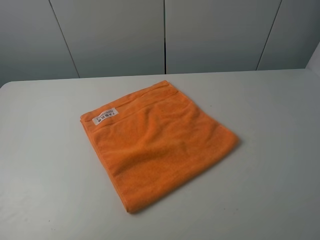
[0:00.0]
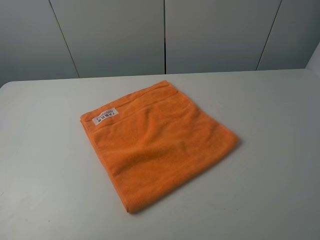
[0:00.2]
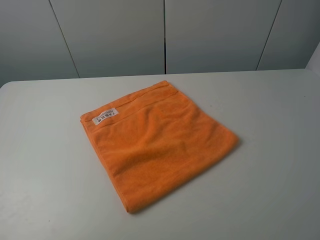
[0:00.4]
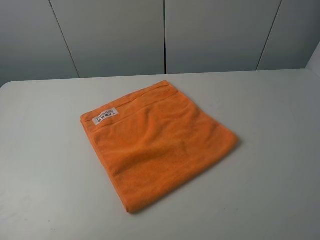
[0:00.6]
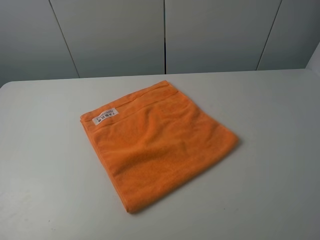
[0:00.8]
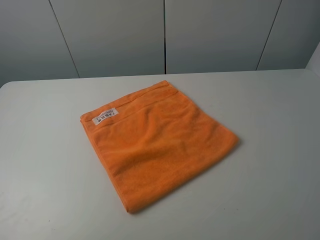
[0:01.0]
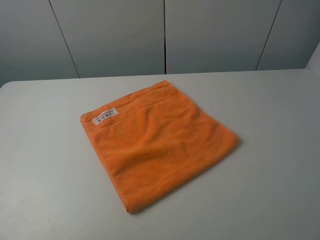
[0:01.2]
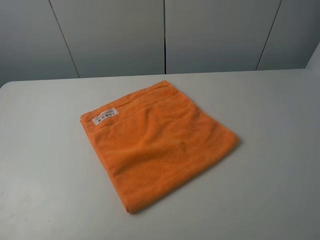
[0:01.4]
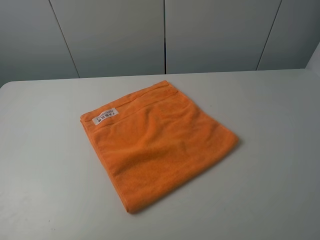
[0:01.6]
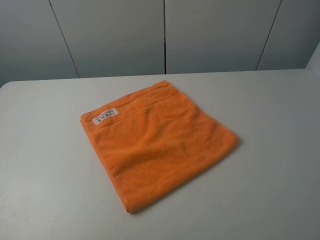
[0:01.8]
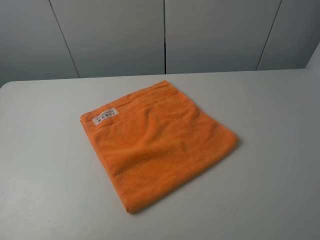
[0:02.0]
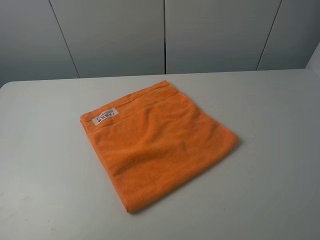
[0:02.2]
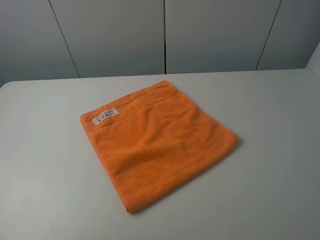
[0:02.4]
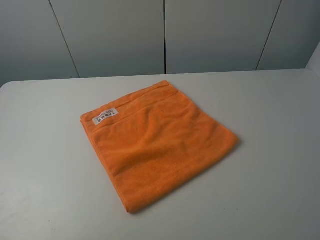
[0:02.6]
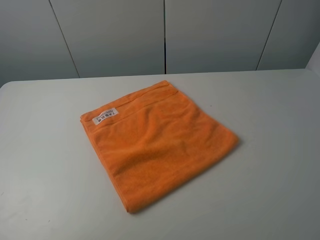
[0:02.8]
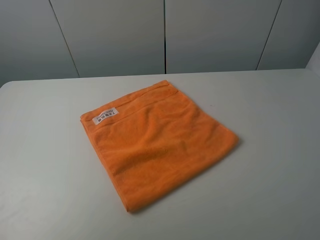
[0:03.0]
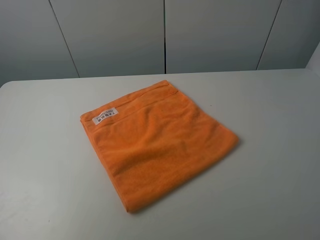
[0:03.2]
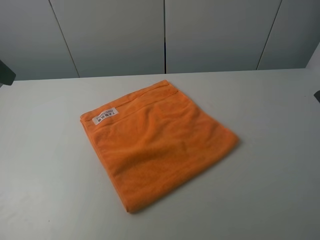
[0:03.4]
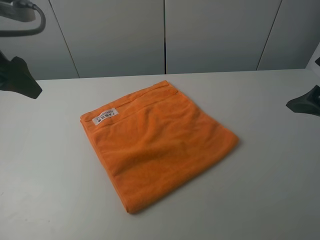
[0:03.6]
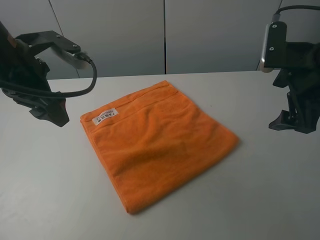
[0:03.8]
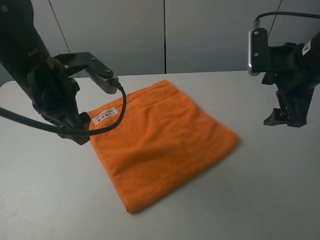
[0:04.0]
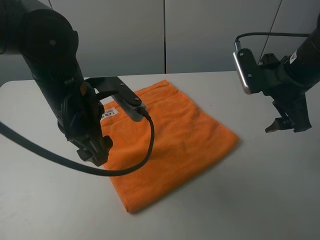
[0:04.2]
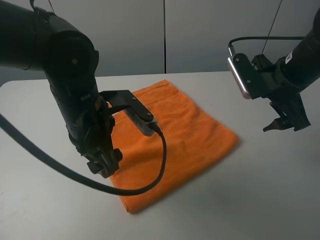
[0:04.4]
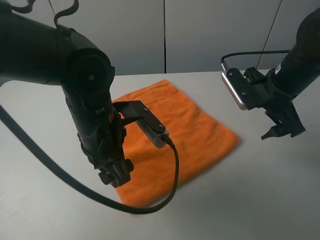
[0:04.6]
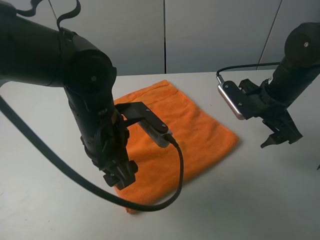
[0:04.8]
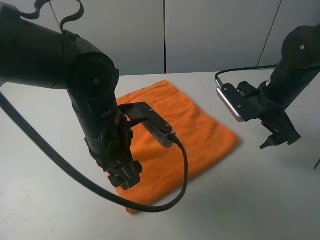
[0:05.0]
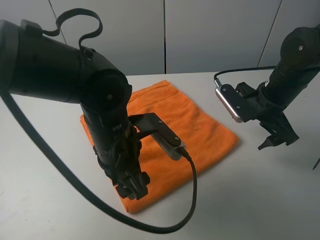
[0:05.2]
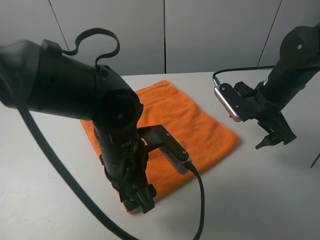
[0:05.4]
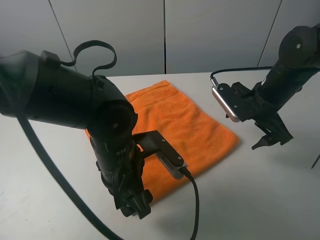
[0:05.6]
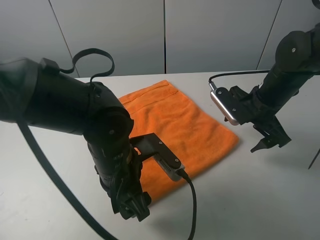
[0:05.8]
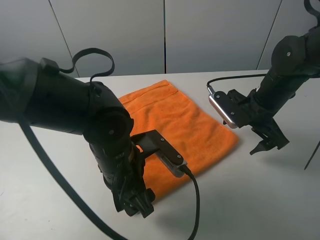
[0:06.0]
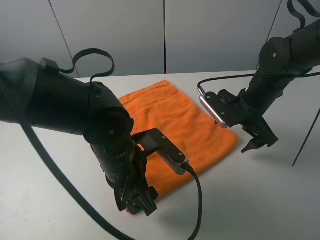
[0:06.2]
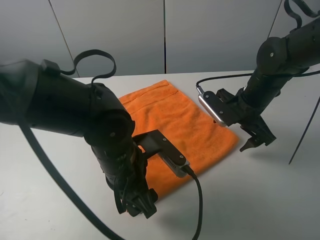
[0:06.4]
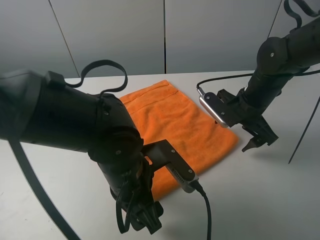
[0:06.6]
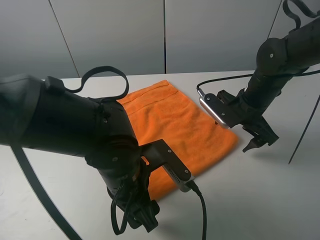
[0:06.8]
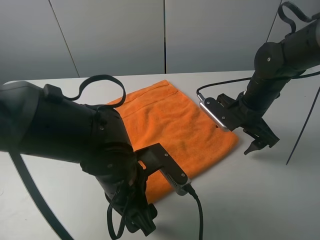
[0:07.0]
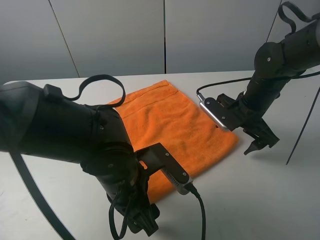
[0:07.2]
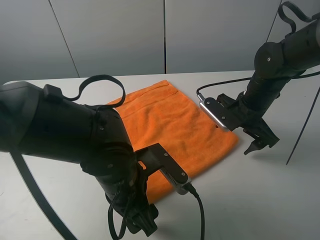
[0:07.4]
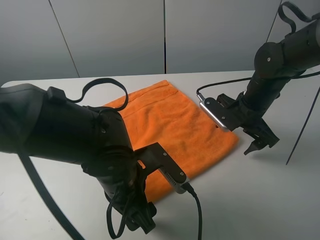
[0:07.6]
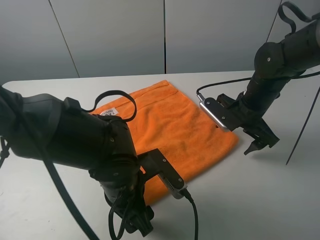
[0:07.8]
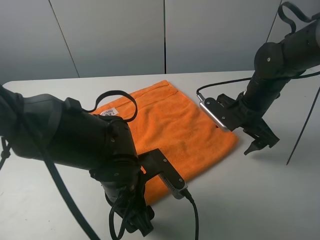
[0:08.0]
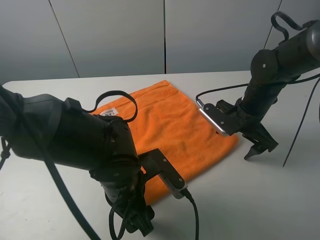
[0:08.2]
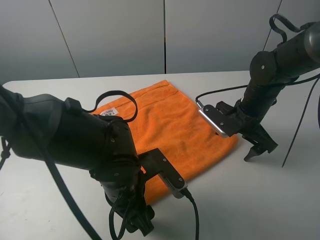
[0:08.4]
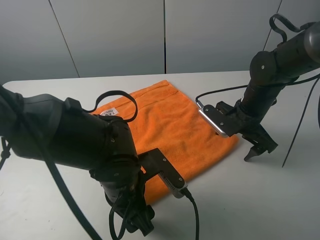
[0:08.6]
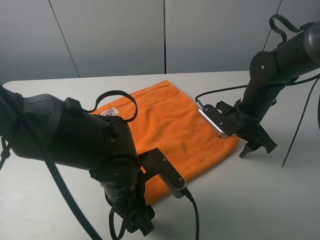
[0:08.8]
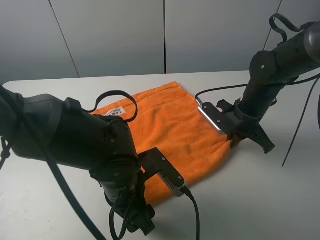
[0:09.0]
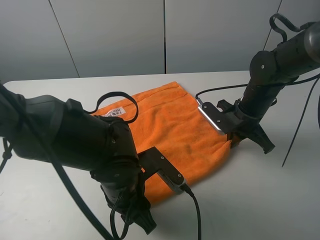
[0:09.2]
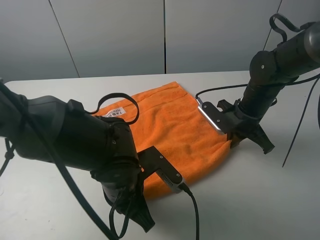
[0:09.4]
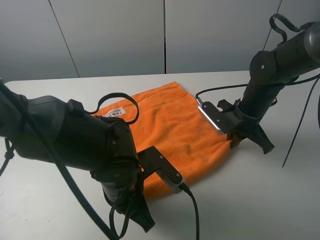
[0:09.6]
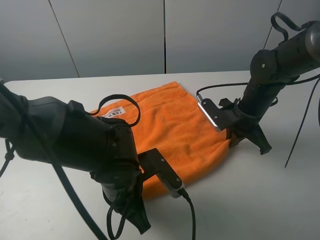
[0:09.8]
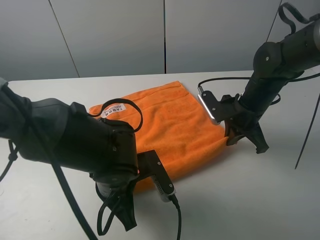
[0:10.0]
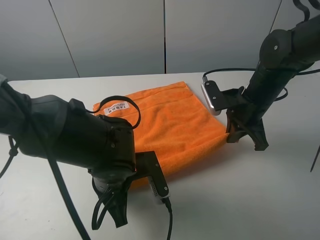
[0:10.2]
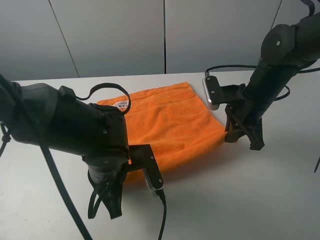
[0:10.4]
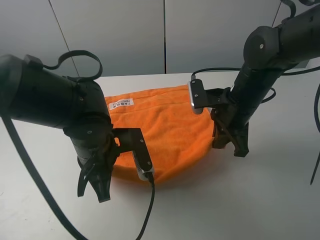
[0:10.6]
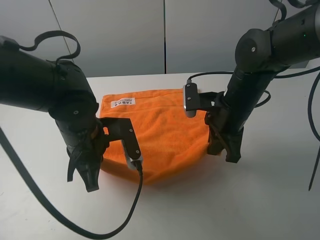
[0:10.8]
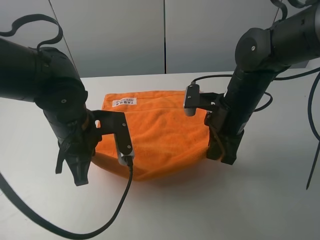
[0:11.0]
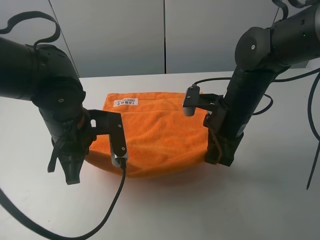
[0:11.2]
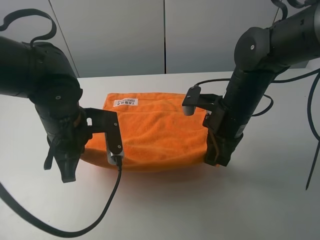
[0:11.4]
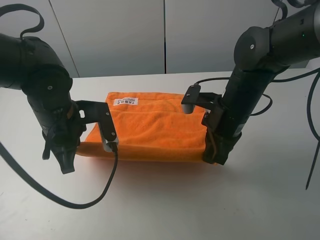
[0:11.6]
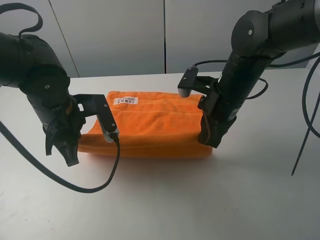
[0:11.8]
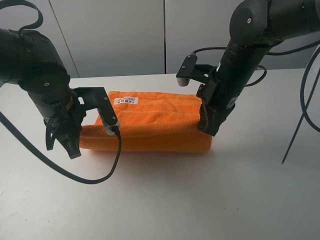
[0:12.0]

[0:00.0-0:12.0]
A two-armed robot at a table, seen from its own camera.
Task of the whole recording: fold the towels on the table.
Step, 0:00.0 to 0:09.0: Grasp the orange towel with the right gripper.
Step, 0:09.2 to 0:09.4: Grasp the orange towel with the left gripper.
0:00.0 to 0:01.6: Both grippers stay about where they are.
0:03.0 to 0:04.4: The left gripper heads to the right, downward and forward, covering approximately 30 cm; the right gripper moves forward and downward, roughly 25 cm.
0:04.4 to 0:06.0: Both grippers move downward, roughly 5 cm.
0:07.6 to 0:09.0: The right gripper closes up.
0:09.0 to 0:10.4: The right gripper ends up some 5 cm from where it was; the left gripper closes its fingers.
0:10.4 to 0:12.0: The left gripper goes roughly 15 cm to the left, forward and upward, while the right gripper goes some 5 cm to the left.

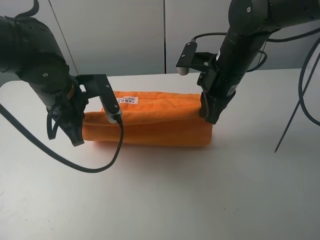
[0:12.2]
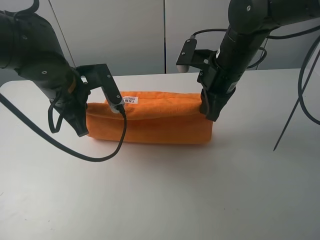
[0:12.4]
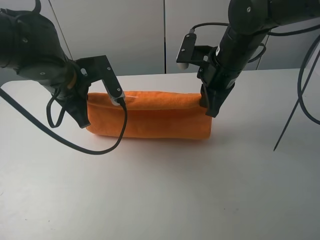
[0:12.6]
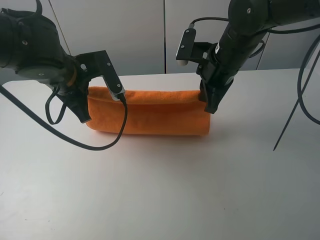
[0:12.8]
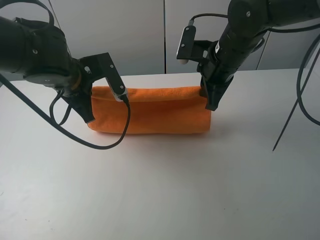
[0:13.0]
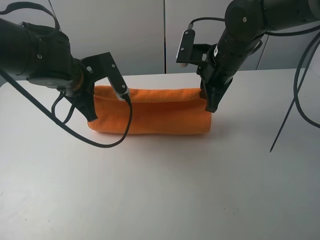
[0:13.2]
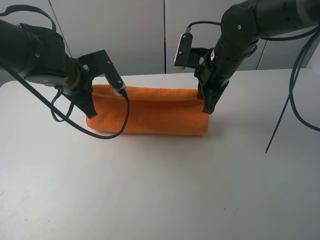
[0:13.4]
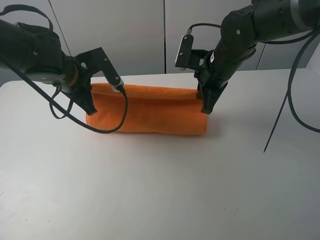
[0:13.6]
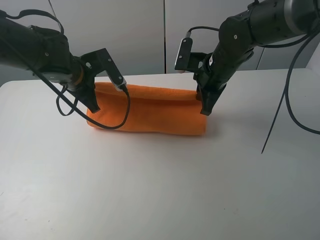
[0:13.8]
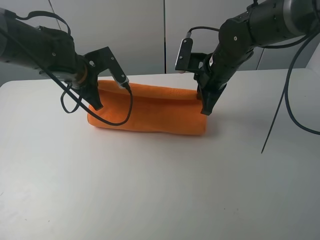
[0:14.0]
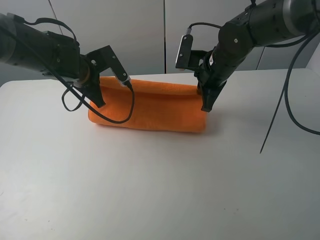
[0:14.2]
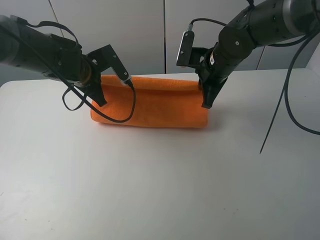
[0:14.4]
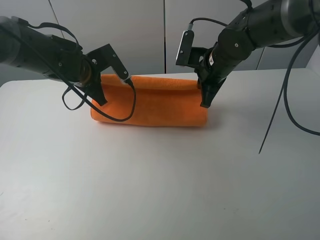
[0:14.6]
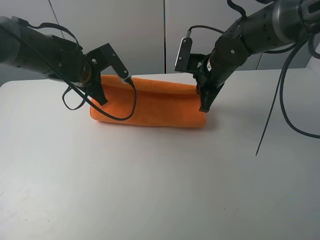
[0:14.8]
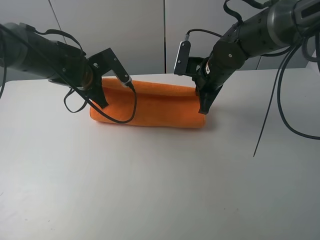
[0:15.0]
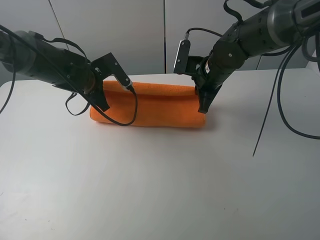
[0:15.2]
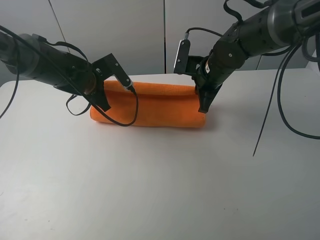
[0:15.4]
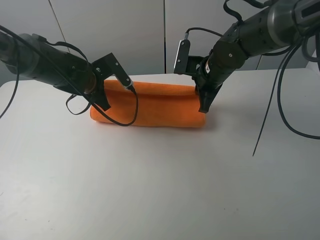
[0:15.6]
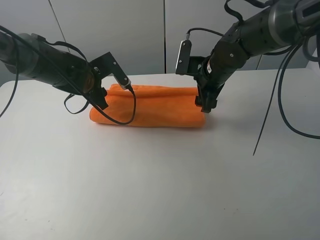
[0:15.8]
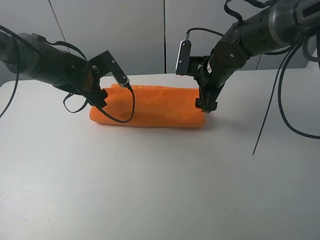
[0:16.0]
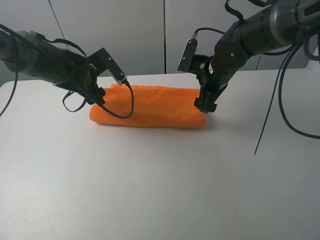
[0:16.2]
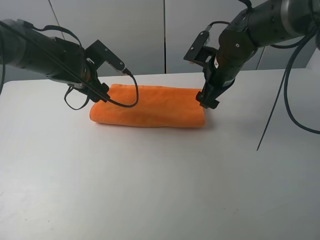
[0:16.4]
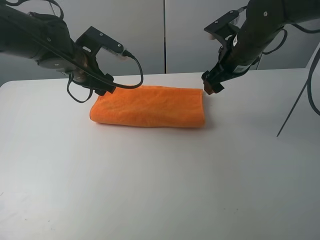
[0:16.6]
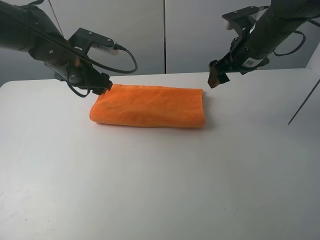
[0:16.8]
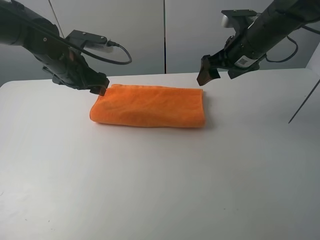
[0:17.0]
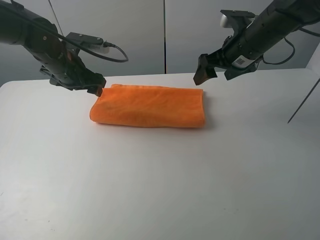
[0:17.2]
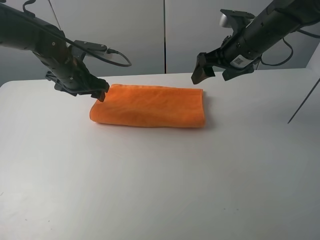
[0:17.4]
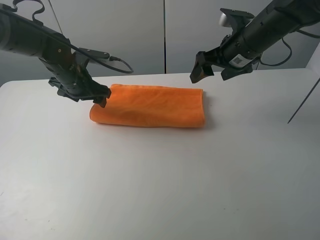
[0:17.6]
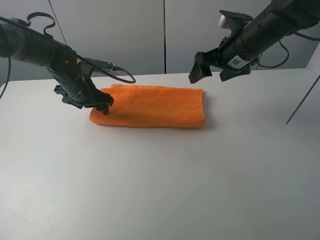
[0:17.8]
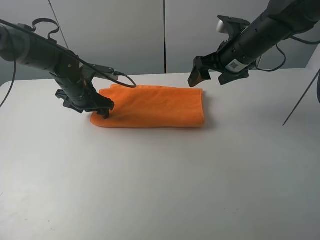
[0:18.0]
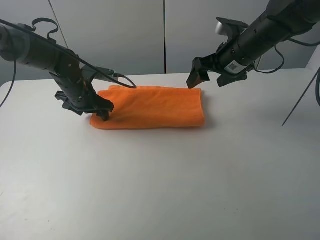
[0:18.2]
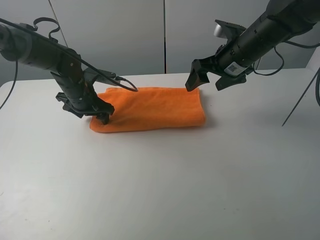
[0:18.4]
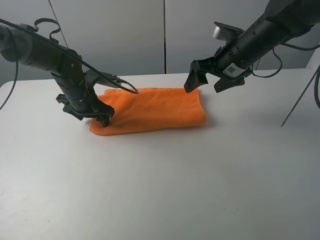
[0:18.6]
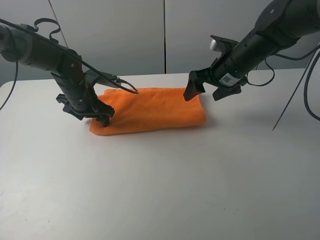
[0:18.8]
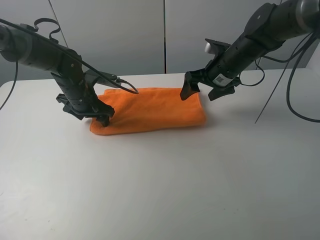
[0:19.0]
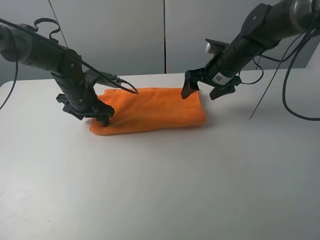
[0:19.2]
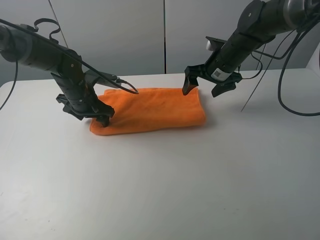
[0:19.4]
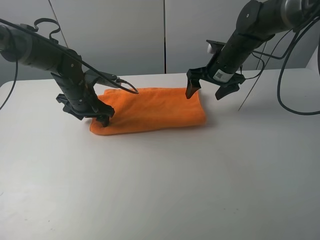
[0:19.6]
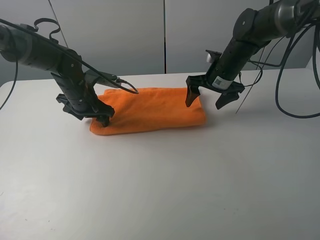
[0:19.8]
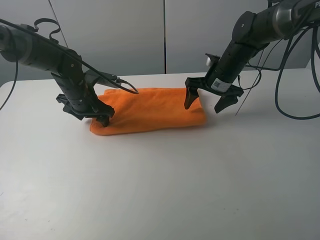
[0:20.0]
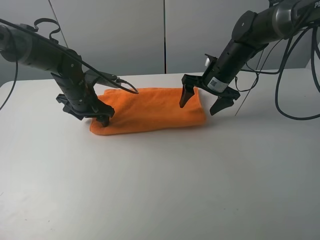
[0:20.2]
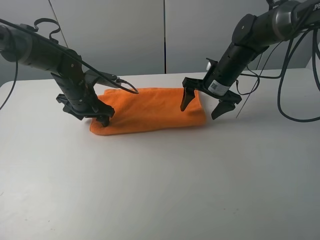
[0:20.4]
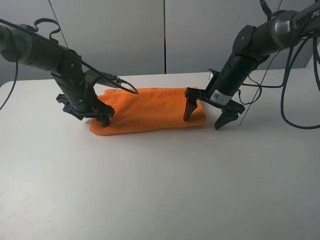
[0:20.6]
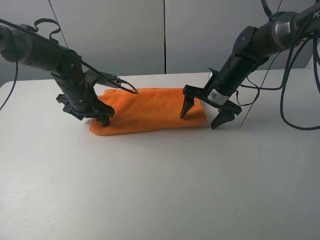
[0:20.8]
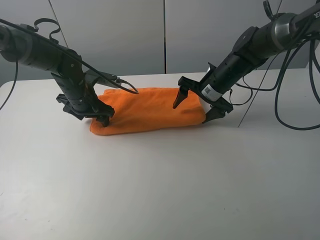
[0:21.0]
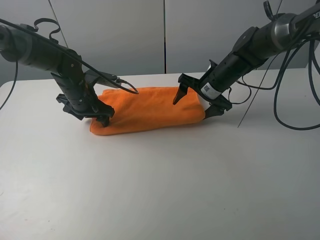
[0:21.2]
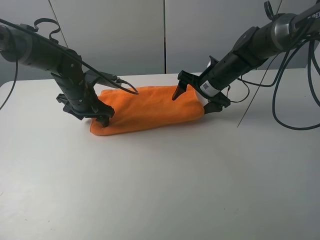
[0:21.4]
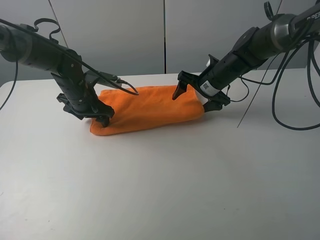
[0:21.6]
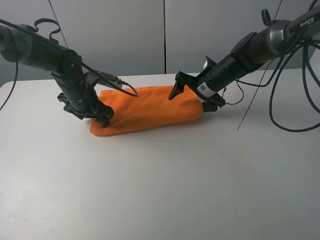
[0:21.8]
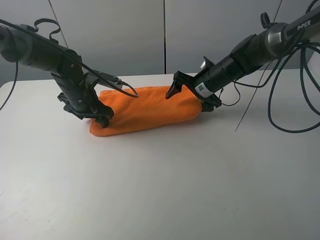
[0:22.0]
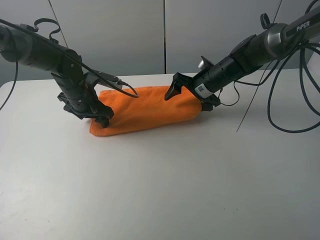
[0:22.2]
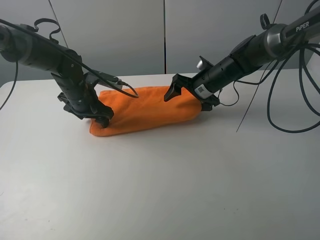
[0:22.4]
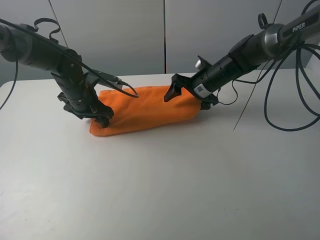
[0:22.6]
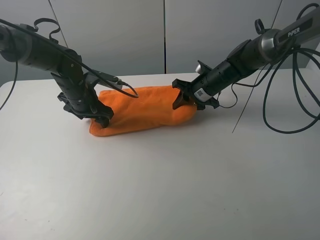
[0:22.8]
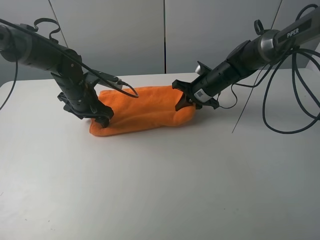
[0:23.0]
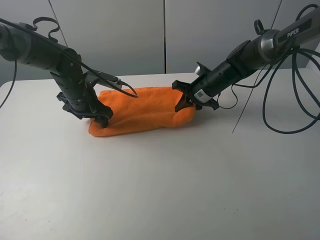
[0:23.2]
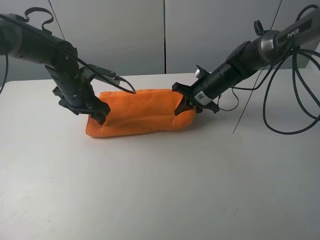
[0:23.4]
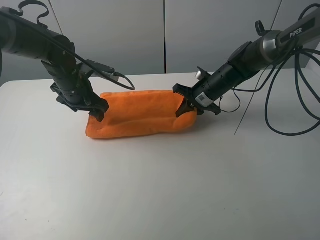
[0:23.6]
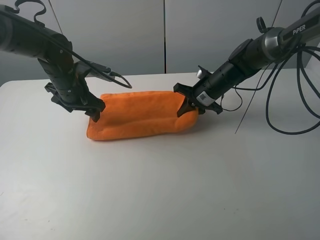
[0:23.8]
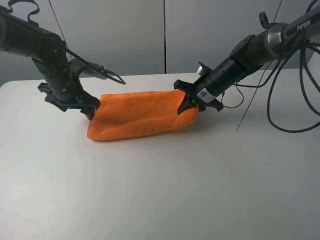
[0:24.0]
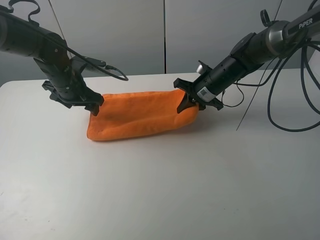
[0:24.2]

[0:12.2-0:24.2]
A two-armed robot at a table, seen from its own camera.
Task of the whole recording: fold the towels on the table.
Step, 0:12.2 to 0:16.6: Fold the orange towel upwards with the right gripper.
Step, 0:16.8 to 0:18.4: Press on the orange towel with the left gripper.
0:12.2 to 0:13.8: The left gripper heads forward, covering approximately 10 cm, while the right gripper shifts by some 5 cm.
0:13.8 to 0:15.2: There are only small adjustments of the grippers.
0:15.2 to 0:16.6: The grippers both shift upward by some 5 cm. The left gripper opens up. Meanwhile the right gripper opens up.
0:16.6 to 0:18.2: The left gripper travels downward by approximately 10 cm.
0:18.2 to 0:19.8: The right gripper is displaced downward by roughly 5 cm.
0:21.2 to 0:22.6: The grippers make only small movements.
0:22.6 to 0:24.2: The right gripper closes up.
